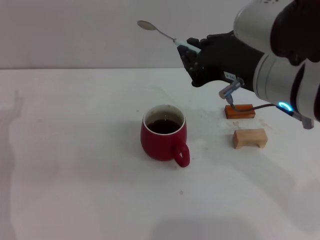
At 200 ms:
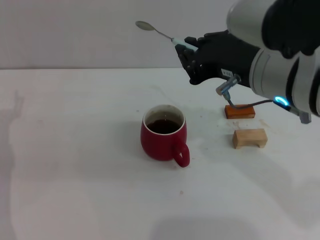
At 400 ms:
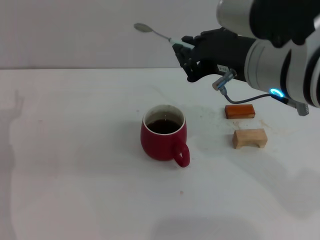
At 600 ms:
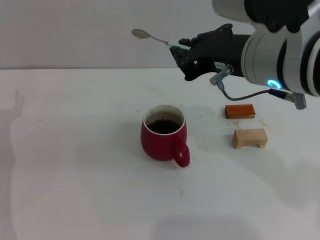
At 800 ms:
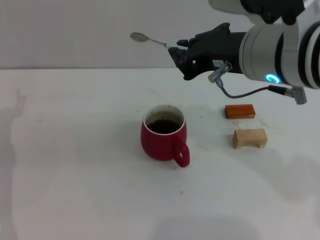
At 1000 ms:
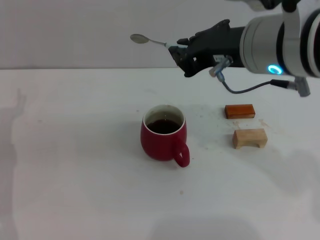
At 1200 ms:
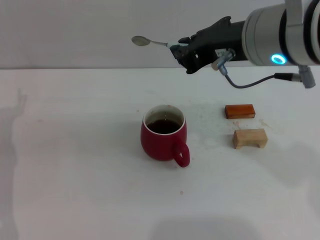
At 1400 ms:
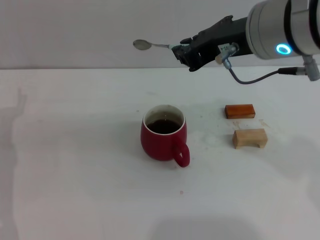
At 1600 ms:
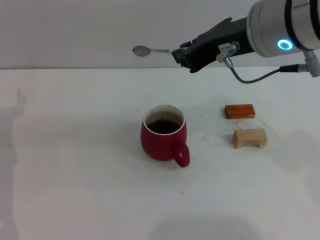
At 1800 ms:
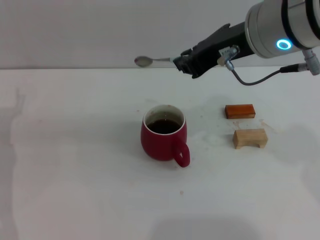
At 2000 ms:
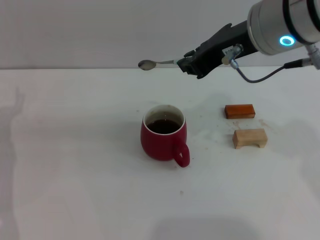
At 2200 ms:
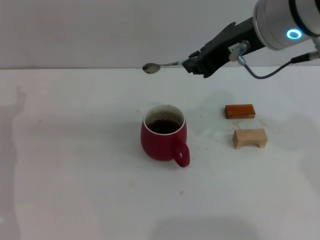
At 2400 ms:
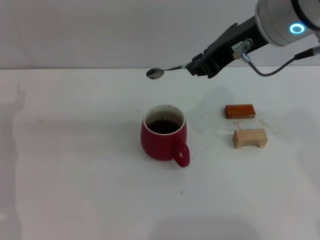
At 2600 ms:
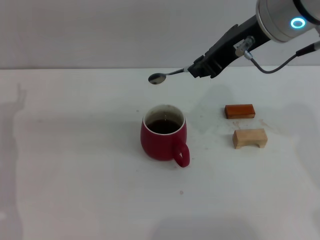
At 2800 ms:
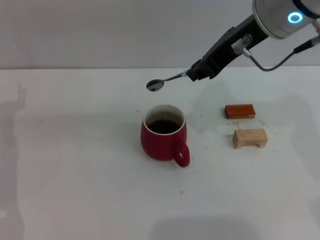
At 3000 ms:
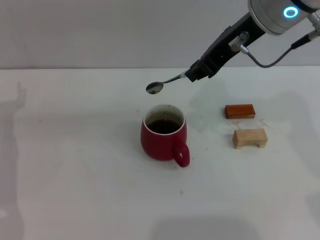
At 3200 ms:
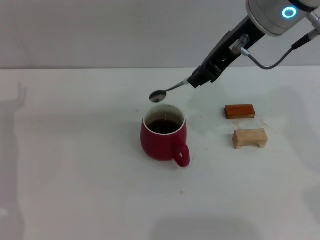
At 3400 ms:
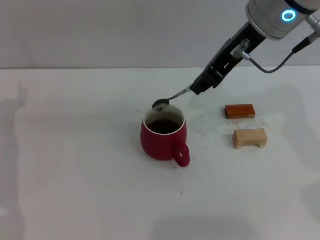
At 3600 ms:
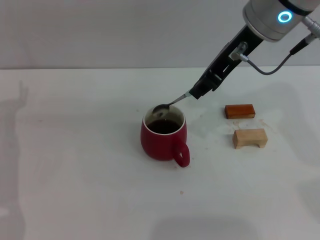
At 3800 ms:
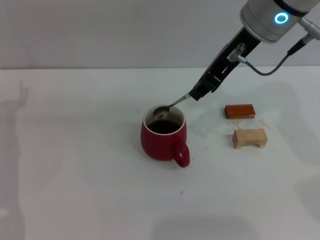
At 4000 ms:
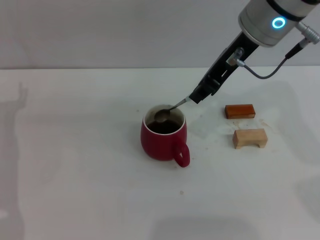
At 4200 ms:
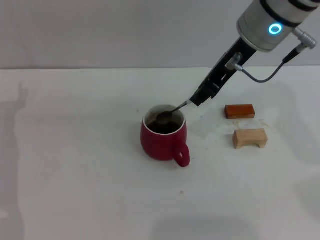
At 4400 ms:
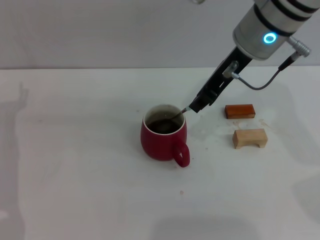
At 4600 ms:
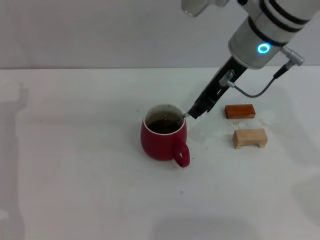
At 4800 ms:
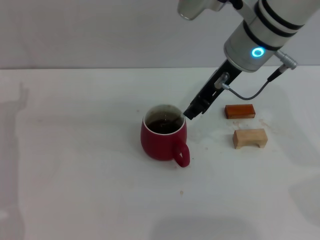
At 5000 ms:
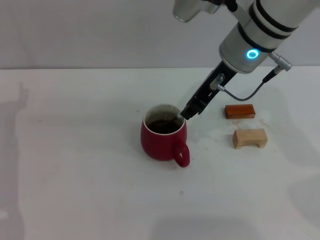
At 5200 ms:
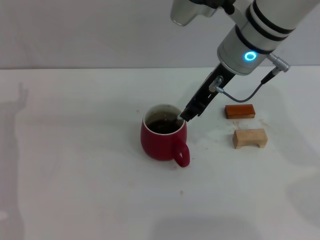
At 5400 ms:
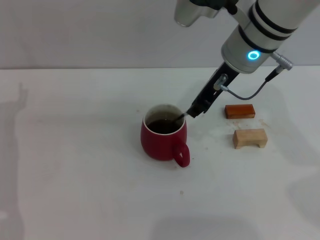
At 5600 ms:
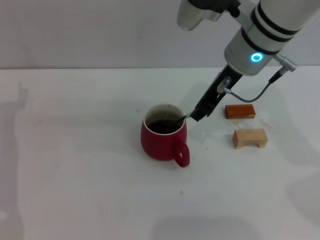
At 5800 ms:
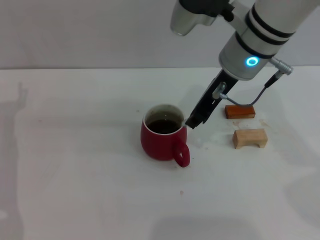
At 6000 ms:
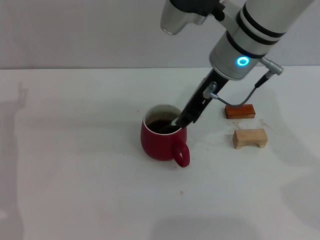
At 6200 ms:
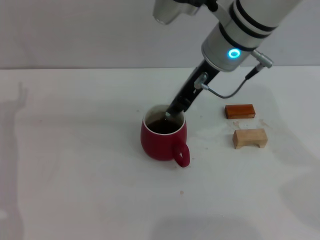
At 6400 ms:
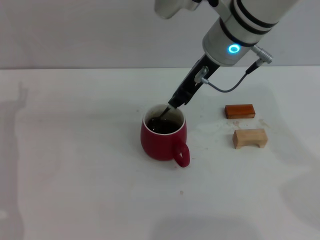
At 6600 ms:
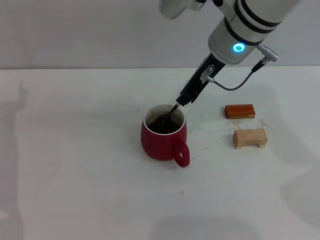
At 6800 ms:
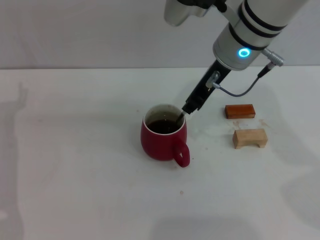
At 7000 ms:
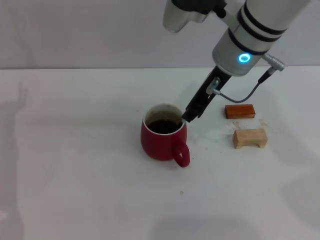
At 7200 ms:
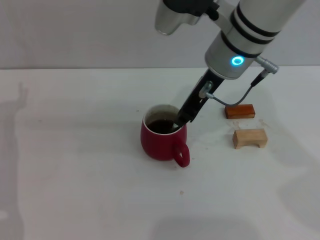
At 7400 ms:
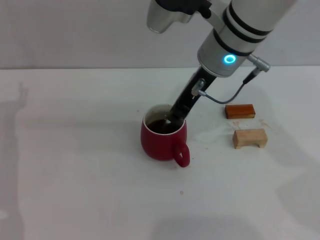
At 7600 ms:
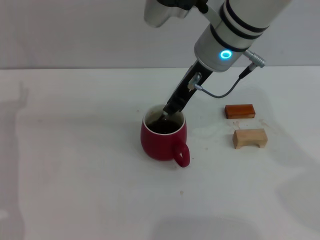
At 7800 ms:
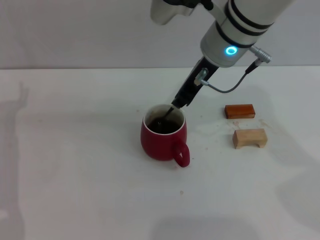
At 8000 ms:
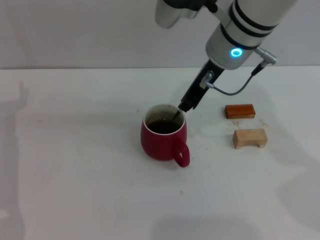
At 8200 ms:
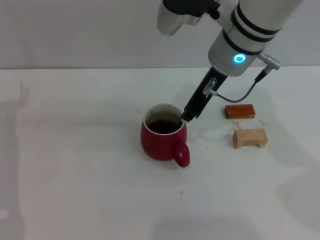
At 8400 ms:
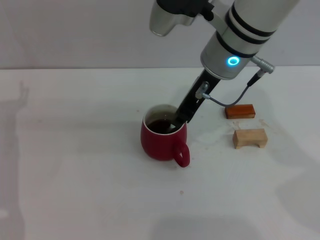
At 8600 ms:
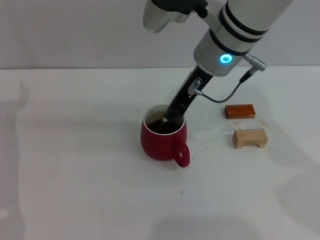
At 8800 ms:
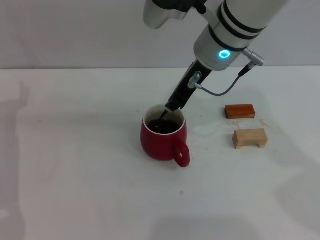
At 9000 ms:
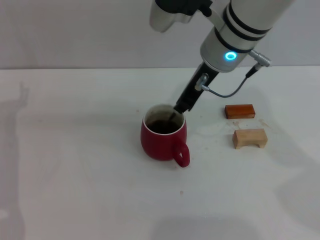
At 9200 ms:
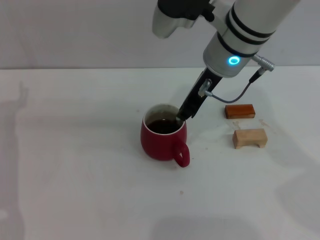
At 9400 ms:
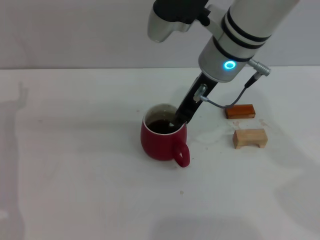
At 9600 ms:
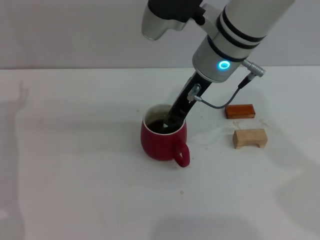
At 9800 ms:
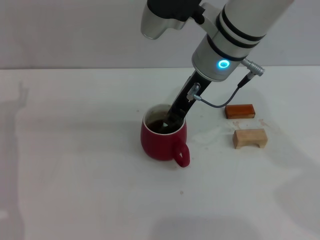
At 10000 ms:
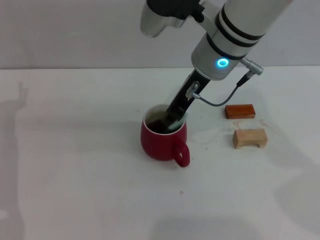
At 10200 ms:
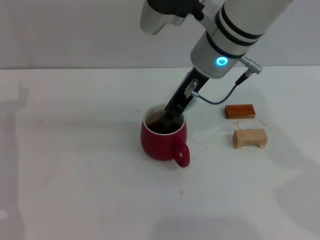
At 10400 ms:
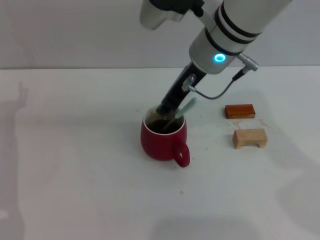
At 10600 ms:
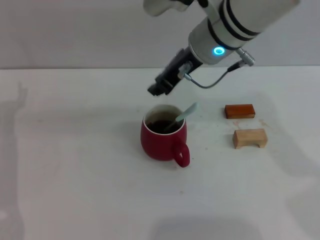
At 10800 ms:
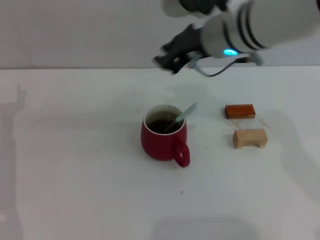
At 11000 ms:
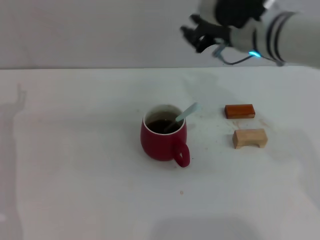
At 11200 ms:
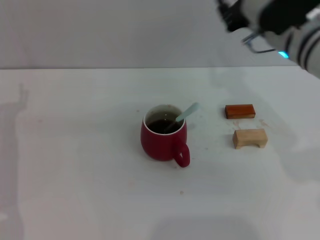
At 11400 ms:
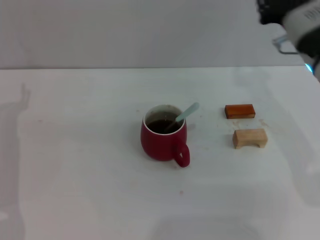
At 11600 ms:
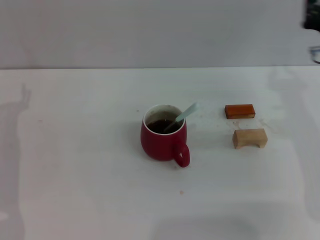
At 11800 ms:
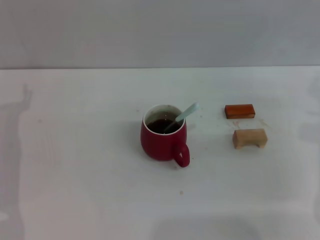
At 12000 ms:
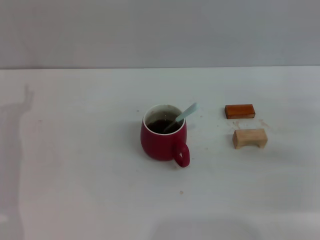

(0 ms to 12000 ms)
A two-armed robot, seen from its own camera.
Task of the whole recording: Move the red cup to the center, lift the blue spoon, stir it three times in the cup, and put the spoon into the cup.
Step, 0 ms - 10800 ms: Stir the coffee in the cup with the right gripper.
0 ms - 1600 ms: The right gripper ends up approximately 5 cm from where it was.
1600 ms - 3000 ms: The right gripper is displaced forward by some 5 cm.
3000 ms - 4400 ms: The right gripper shifts by about 5 cm.
4400 ms - 10400 ms: The grippers stay close to where they were, moving slightly.
10400 ms - 12000 ms: The right gripper goes about 30 cm to the right and downward.
